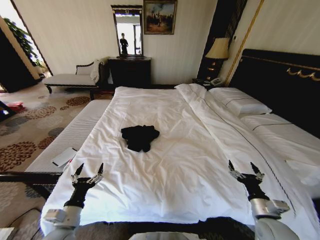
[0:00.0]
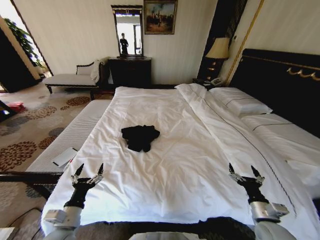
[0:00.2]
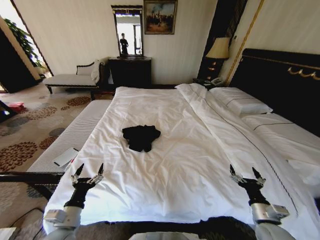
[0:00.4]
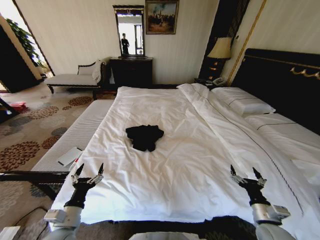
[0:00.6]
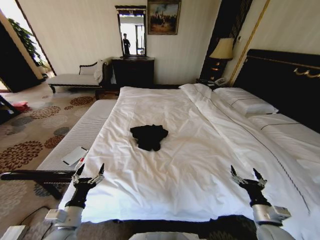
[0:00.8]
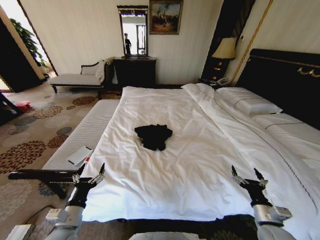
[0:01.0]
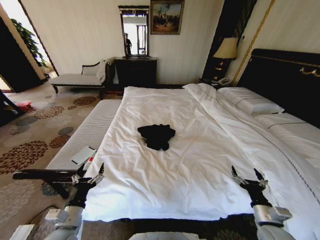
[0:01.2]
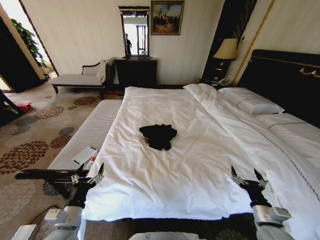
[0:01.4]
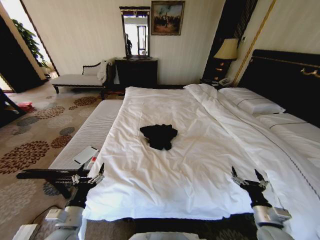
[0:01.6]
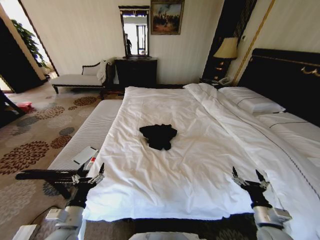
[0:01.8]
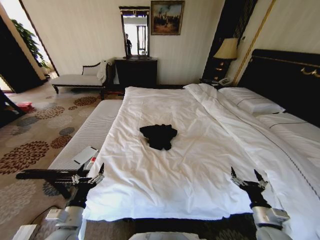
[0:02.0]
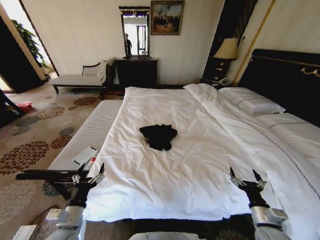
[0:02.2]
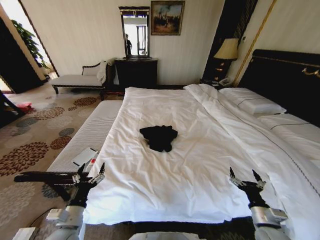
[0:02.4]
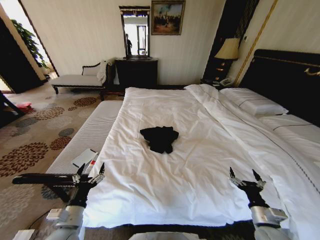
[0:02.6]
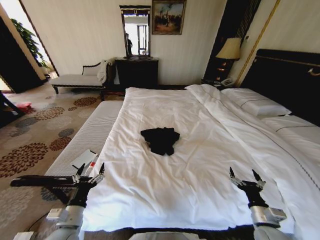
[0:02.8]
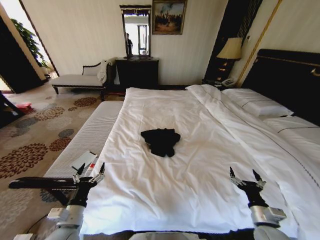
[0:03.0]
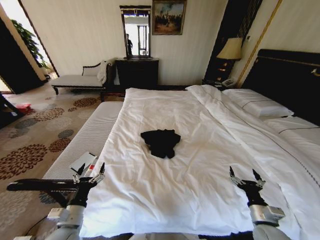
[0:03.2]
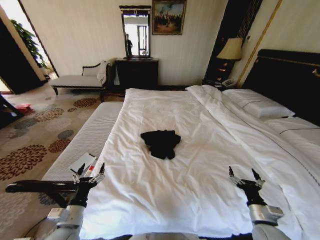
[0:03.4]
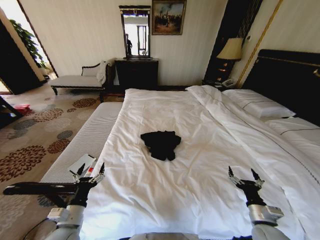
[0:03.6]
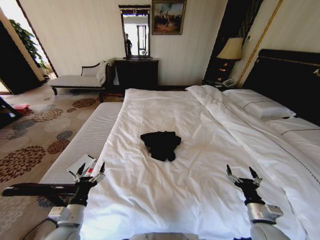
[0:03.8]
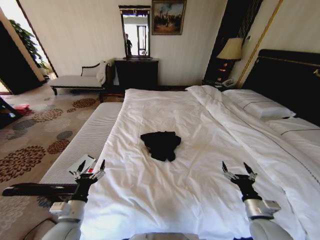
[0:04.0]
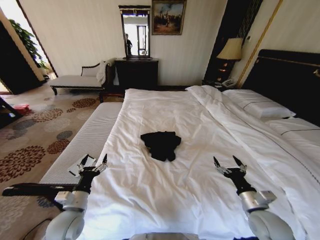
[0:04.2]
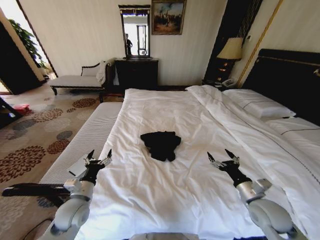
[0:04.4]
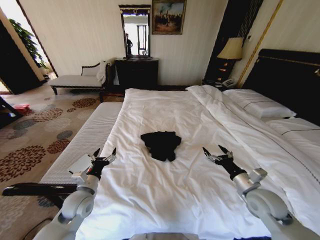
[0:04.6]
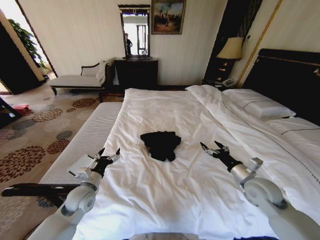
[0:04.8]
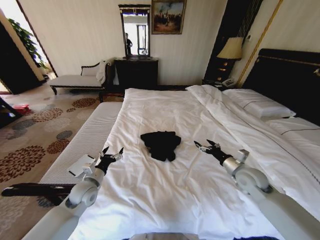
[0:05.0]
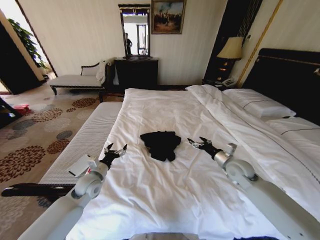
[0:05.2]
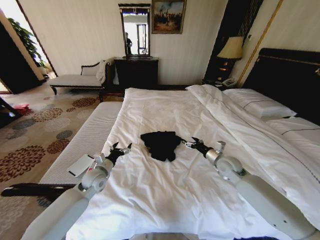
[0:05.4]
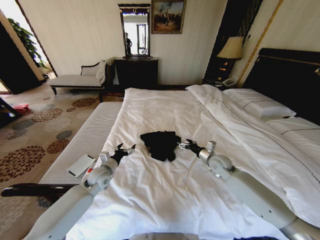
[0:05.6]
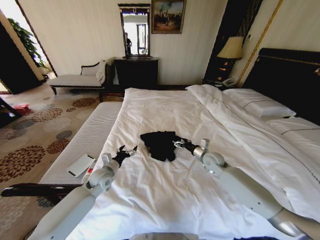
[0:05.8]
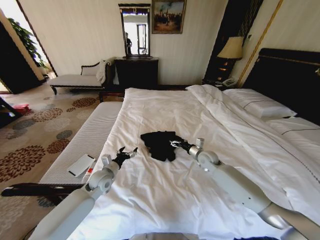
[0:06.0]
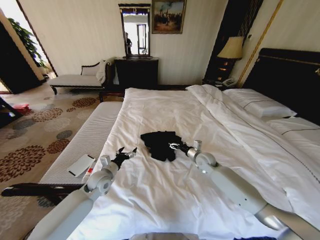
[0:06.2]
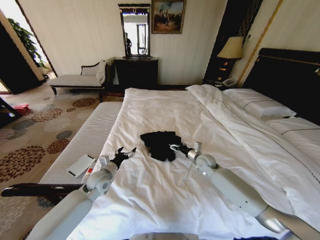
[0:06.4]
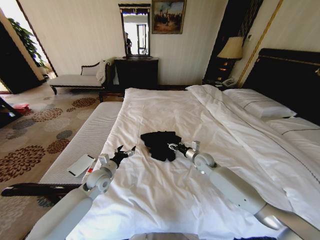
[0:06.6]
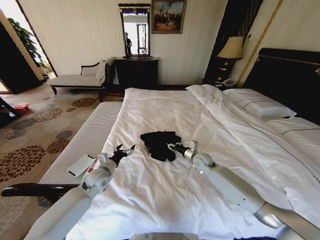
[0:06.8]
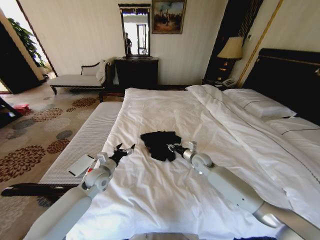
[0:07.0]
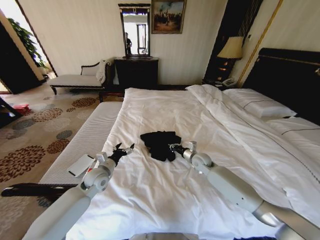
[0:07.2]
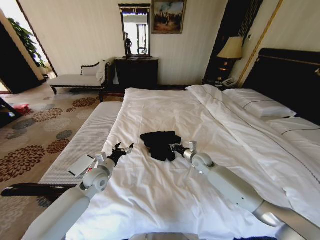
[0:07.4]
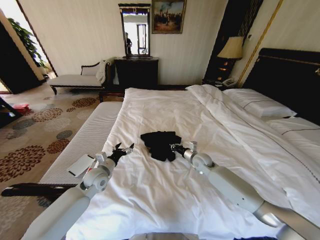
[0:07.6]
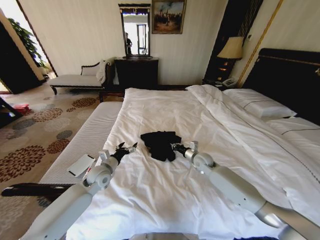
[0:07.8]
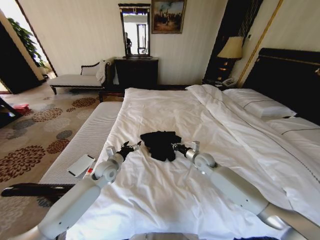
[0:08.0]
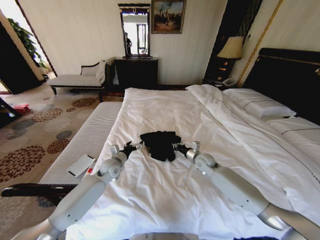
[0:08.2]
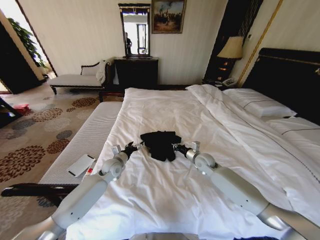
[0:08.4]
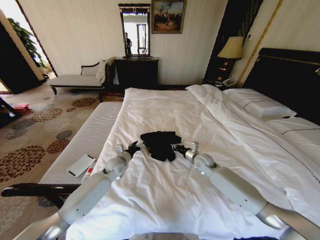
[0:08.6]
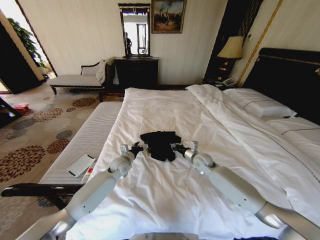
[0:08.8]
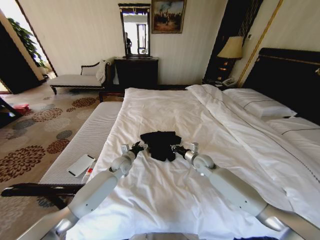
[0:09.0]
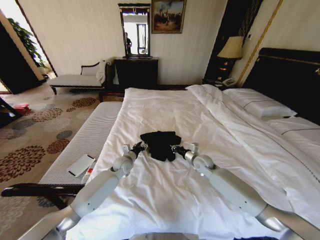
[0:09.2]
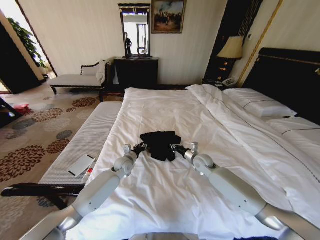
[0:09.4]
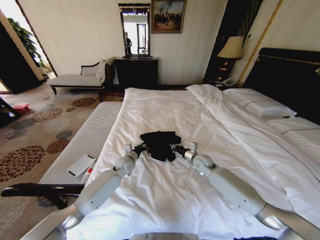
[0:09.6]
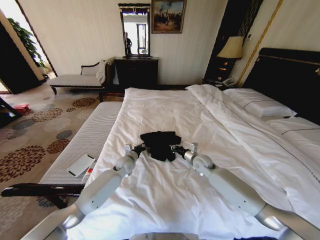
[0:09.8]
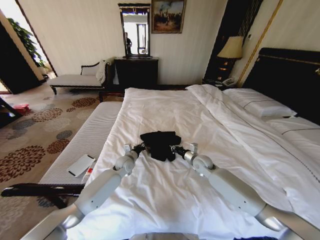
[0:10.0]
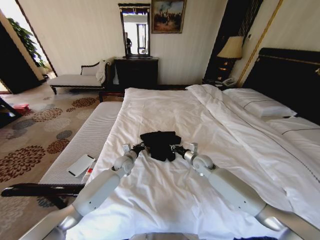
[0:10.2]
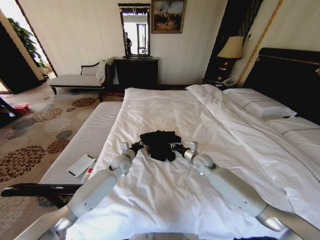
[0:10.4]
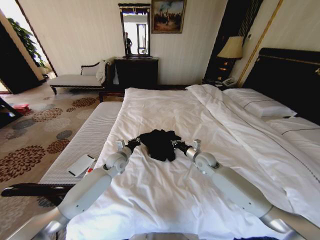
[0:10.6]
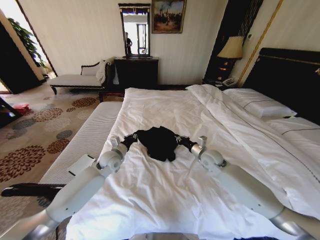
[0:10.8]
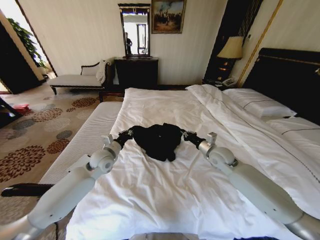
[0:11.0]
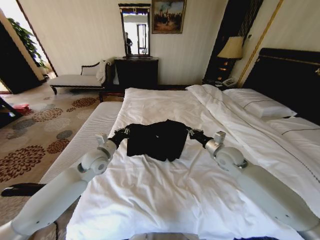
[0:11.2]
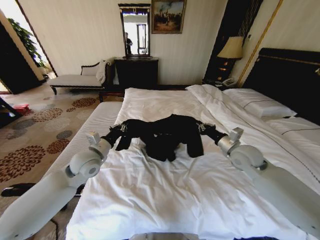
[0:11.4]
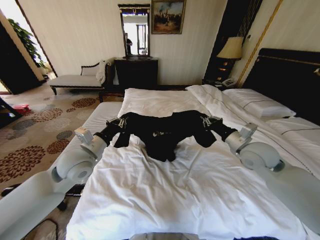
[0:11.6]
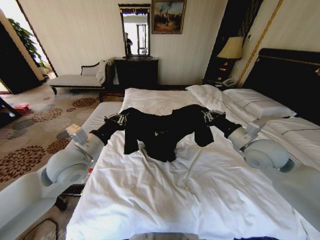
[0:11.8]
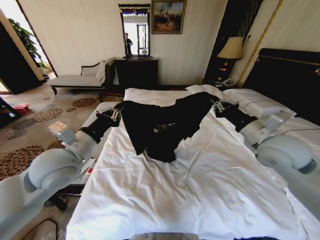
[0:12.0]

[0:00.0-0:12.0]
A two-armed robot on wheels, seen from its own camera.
Task of the whole recording: Fold the clothes on the bed.
0:03.0 to 0:04.4: The left gripper moves forward, approximately 10 cm. The right gripper heads upward and forward, covering roughly 10 cm.
0:04.4 to 0:06.0: The left gripper goes roughly 10 cm forward. Meanwhile the right gripper goes roughly 25 cm forward.
0:06.0 to 0:07.6: The right gripper closes its fingers.
0:07.6 to 0:09.0: The left gripper moves forward and to the right, roughly 10 cm.
0:09.0 to 0:10.4: The left gripper closes its fingers.
0:10.4 to 0:12.0: The grippers both shift upward and backward by about 30 cm.

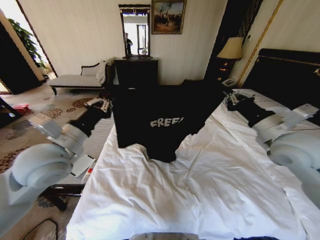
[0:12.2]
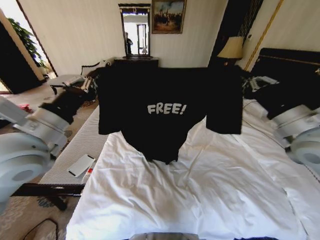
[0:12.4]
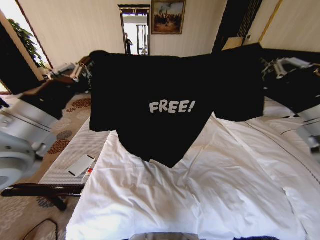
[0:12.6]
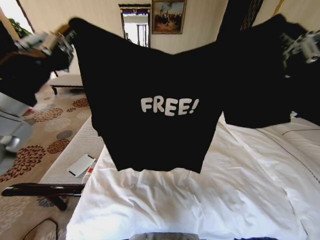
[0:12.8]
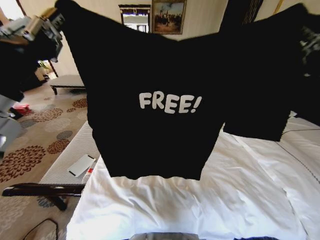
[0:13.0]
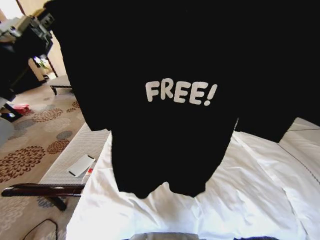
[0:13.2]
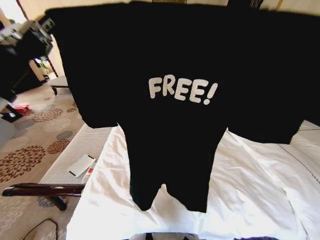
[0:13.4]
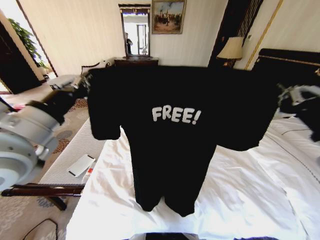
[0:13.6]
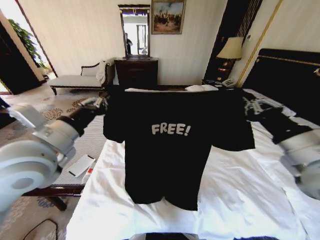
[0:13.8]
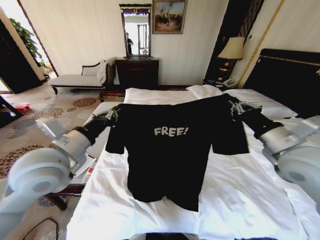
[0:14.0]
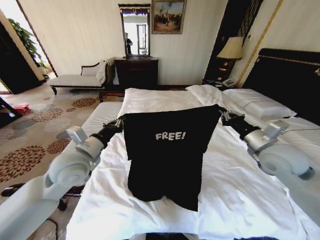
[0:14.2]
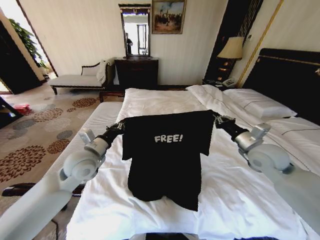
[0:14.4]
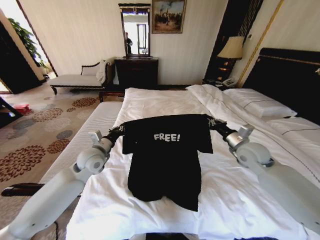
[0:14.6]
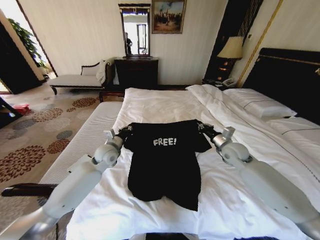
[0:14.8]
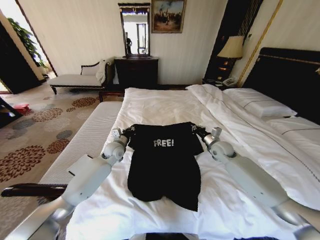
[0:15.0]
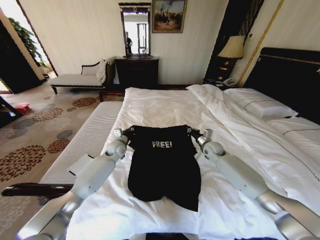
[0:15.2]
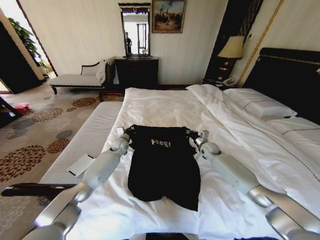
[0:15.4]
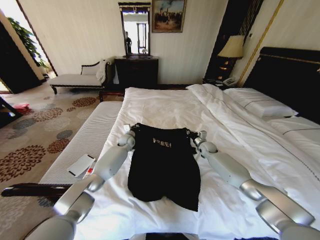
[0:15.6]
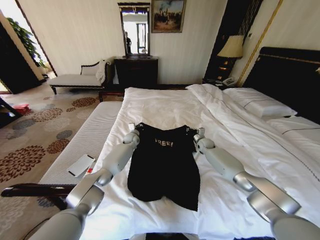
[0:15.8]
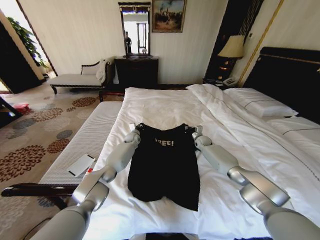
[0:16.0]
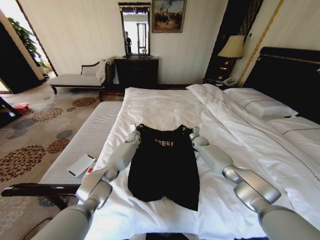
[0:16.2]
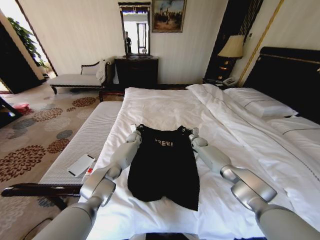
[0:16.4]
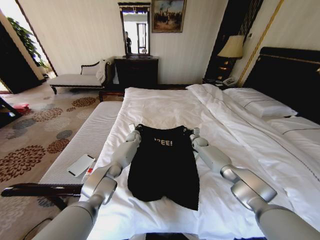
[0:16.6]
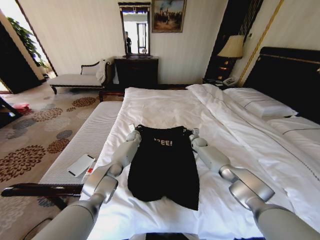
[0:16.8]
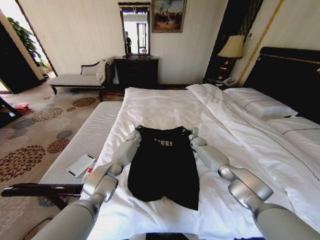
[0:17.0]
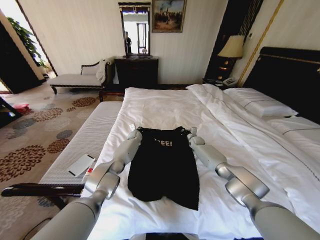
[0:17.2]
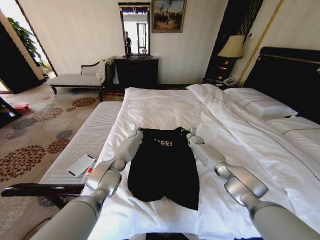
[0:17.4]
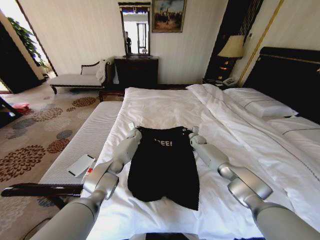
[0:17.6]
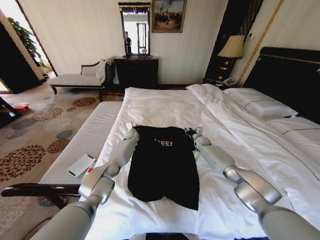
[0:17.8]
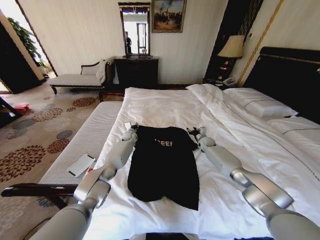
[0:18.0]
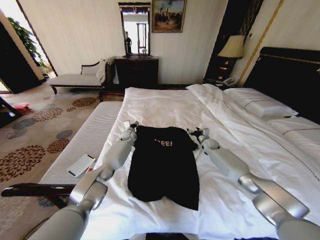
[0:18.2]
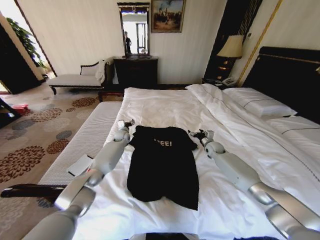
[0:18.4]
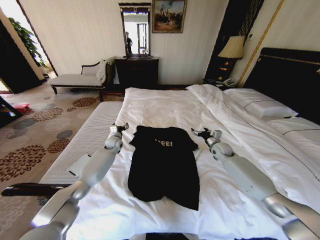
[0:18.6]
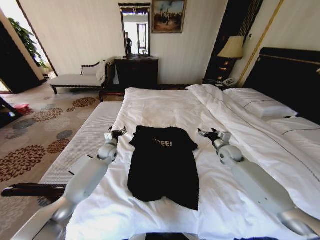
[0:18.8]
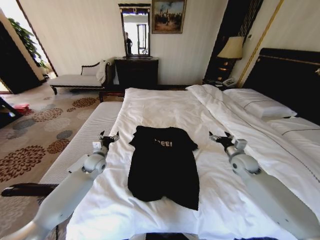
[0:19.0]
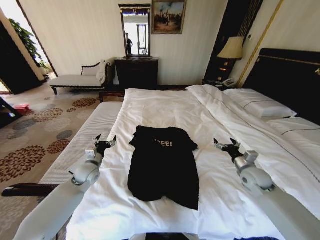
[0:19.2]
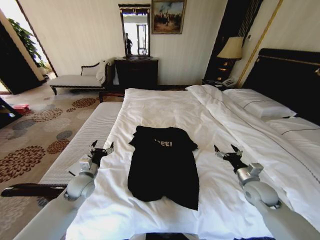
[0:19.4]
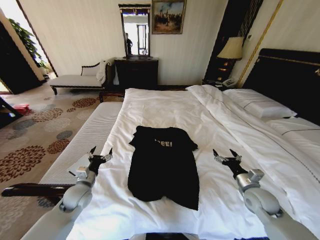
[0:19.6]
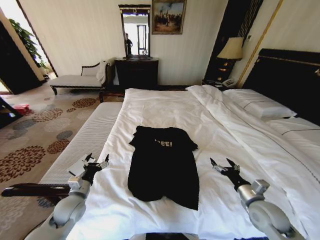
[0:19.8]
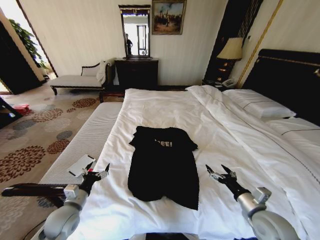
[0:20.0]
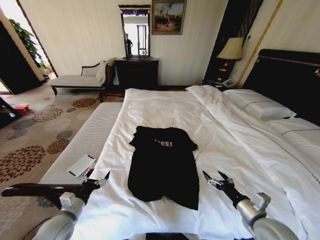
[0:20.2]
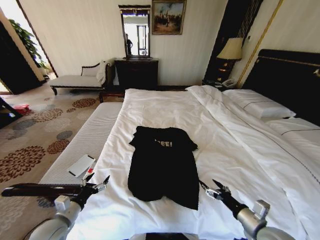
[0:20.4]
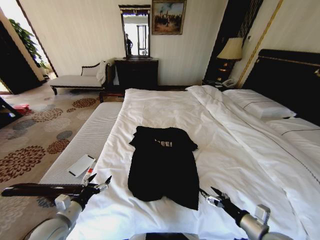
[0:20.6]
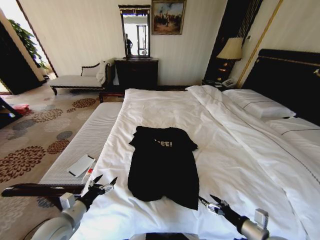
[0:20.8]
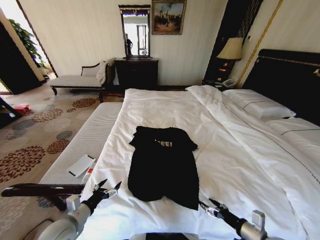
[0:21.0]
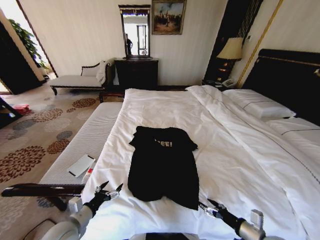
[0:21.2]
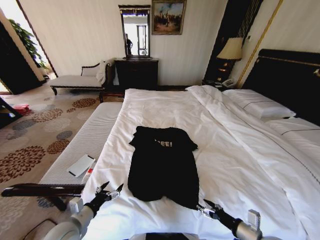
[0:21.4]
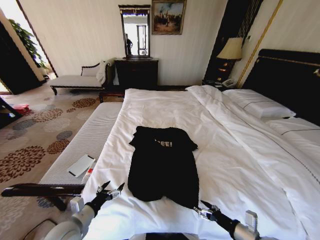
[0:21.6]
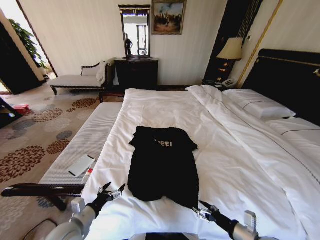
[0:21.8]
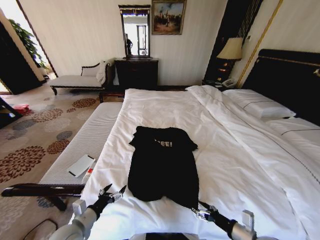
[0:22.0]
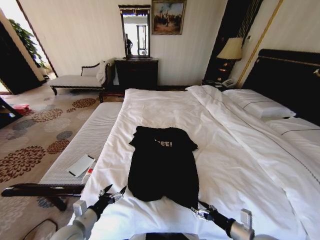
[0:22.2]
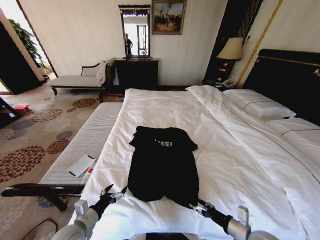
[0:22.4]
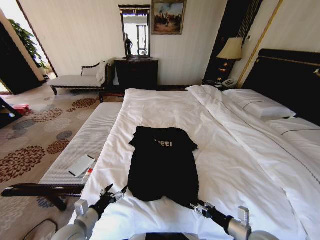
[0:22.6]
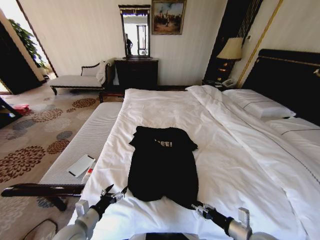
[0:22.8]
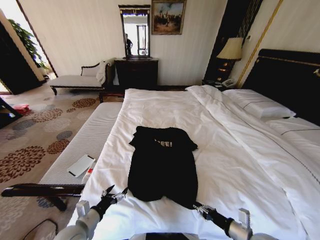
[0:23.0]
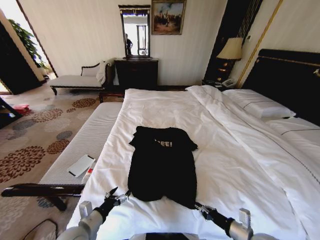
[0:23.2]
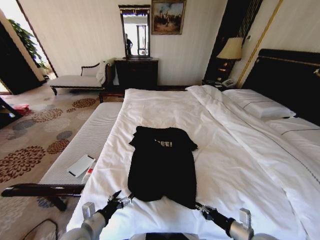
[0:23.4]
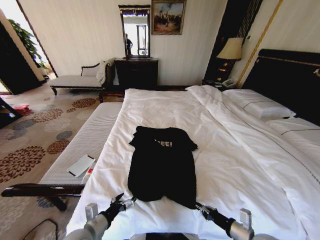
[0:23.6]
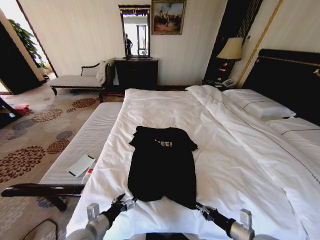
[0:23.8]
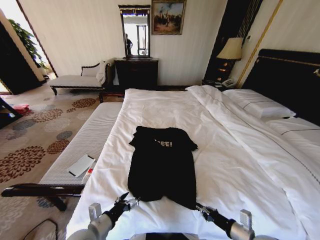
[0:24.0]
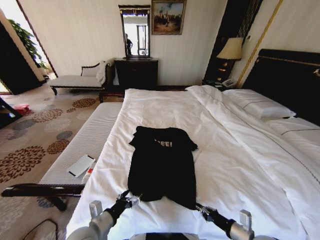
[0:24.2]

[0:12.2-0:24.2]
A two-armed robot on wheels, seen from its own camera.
Task of the whole recording: Fold the clothes on the bed.
0:12.2 to 0:13.8: The left gripper travels upward and back again, some 10 cm each way, while the right gripper heads backward, covering some 10 cm.
0:13.8 to 0:15.2: The left gripper goes some 35 cm downward and forward. The right gripper goes some 40 cm forward and downward.
0:15.2 to 0:16.6: The left gripper shifts approximately 15 cm forward, to the right and downward. Meanwhile the right gripper heads forward and downward, covering roughly 15 cm.
0:16.6 to 0:18.2: The left gripper opens. The right gripper shifts by approximately 5 cm, and opens its fingers.
0:18.2 to 0:19.8: The right gripper travels backward by roughly 35 cm, while the left gripper heads backward and to the left, covering some 40 cm.
0:19.8 to 0:21.2: Both grippers travel together backward, roughly 10 cm.
0:21.2 to 0:22.6: The grippers move only a little.
0:22.6 to 0:24.2: The left gripper goes approximately 5 cm to the right, while the right gripper closes.
